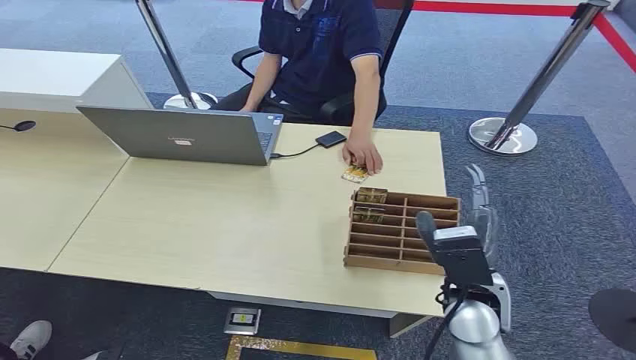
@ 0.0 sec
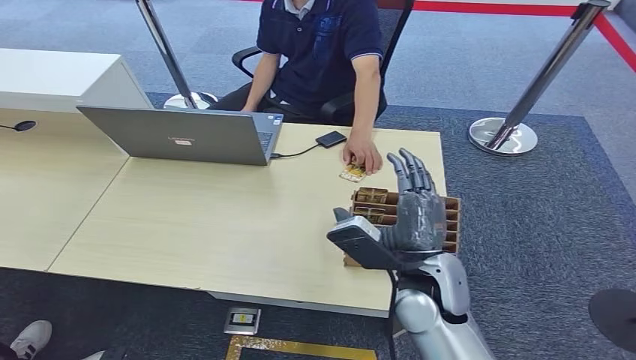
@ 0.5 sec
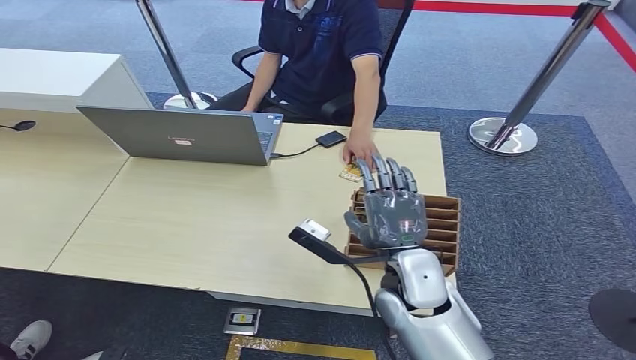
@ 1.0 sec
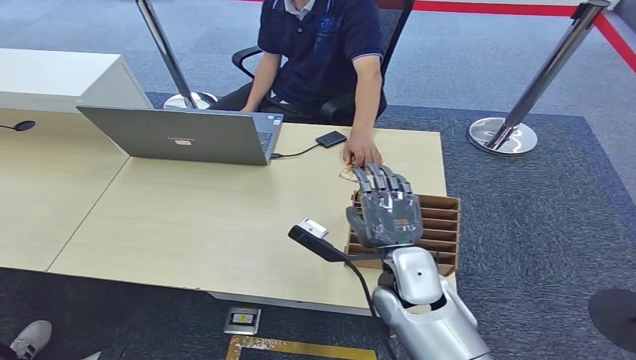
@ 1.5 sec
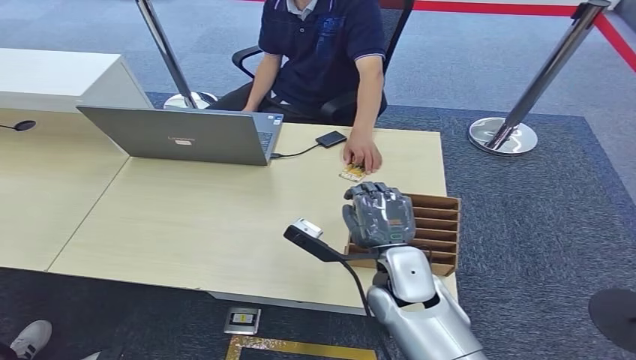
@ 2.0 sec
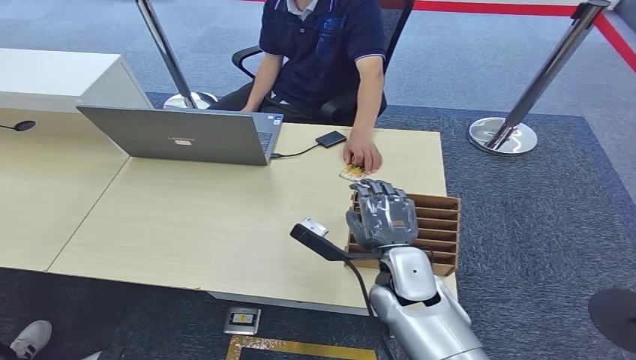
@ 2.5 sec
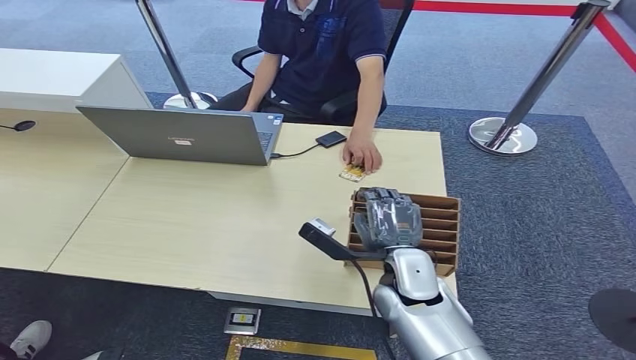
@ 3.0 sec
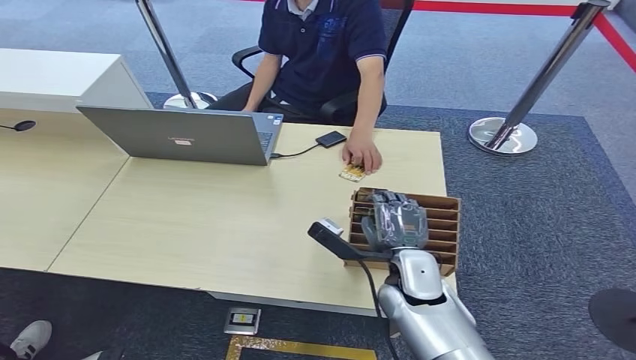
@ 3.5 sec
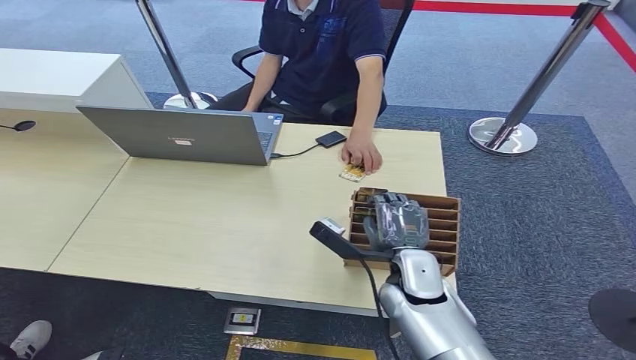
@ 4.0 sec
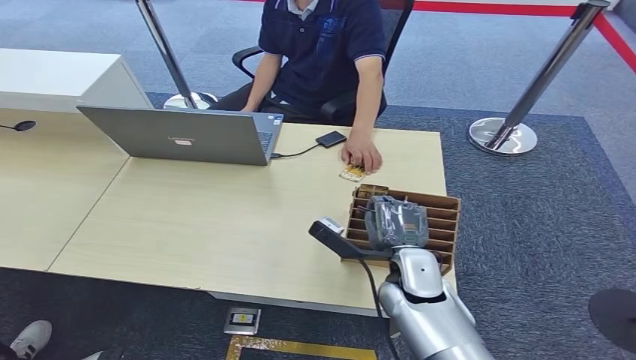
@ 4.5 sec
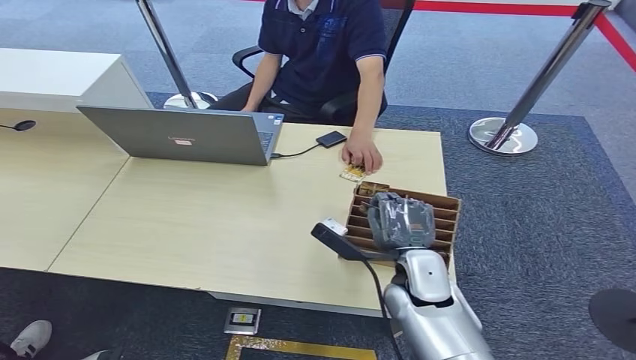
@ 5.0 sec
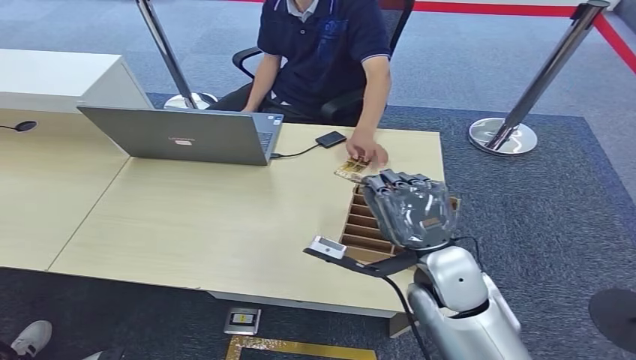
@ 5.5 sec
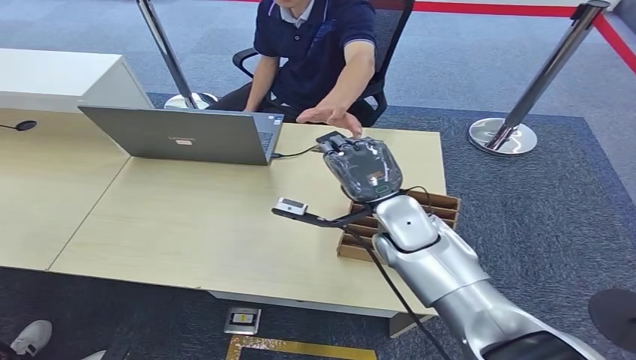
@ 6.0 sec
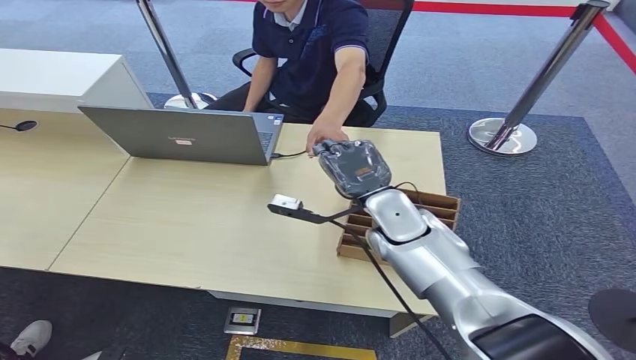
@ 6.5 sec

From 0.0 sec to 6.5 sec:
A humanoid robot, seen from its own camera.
Step, from 0.0 sec to 4.5 sec: Pick up the key card from the card box.
Step, from 5.0 sec to 6.5 sec: Hand the key card to the target.
From 2.0 sec to 4.5 sec: The hands make only small movements.
From 4.5 sec to 6.5 sec: The right hand heads forward and upward, covering some 15 cm.
